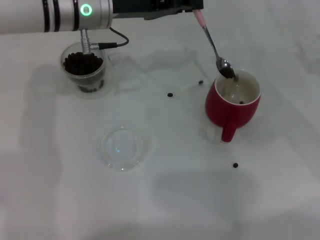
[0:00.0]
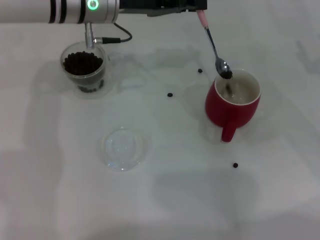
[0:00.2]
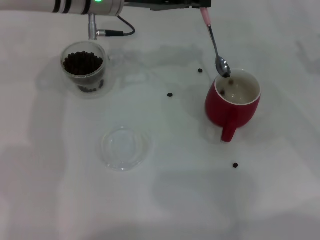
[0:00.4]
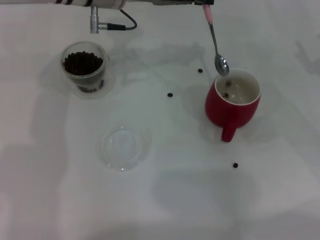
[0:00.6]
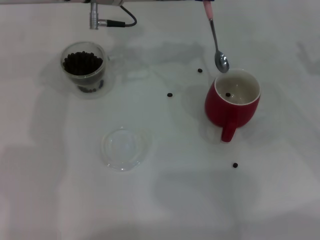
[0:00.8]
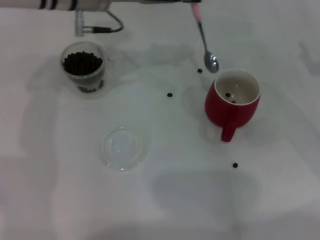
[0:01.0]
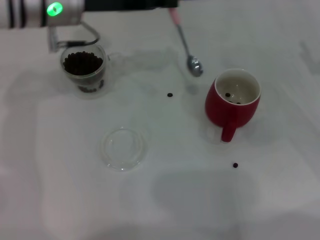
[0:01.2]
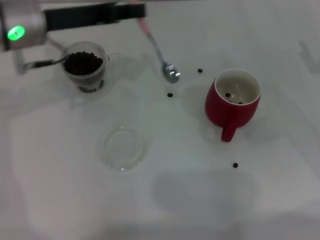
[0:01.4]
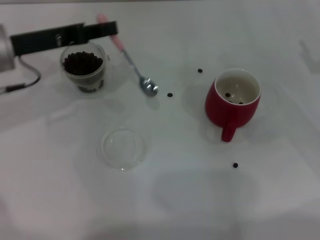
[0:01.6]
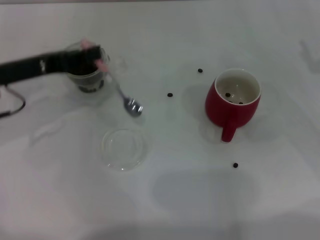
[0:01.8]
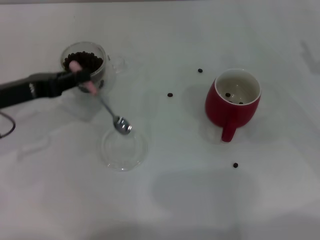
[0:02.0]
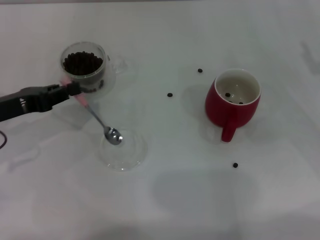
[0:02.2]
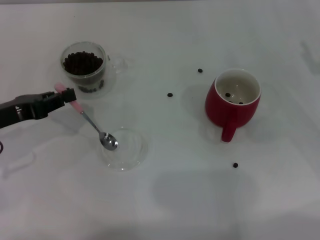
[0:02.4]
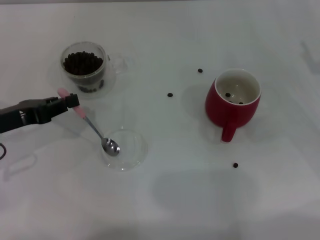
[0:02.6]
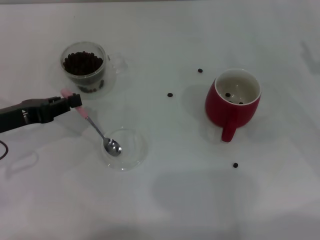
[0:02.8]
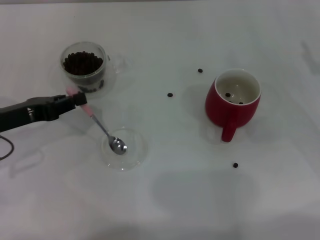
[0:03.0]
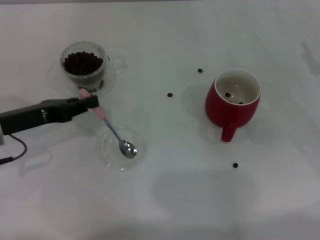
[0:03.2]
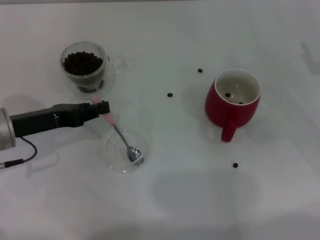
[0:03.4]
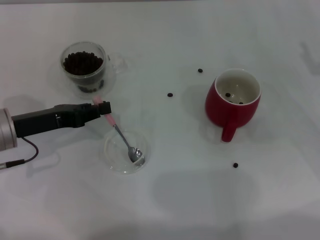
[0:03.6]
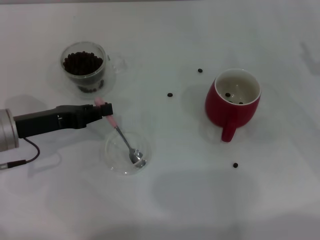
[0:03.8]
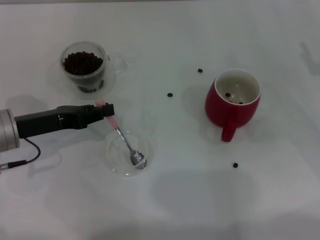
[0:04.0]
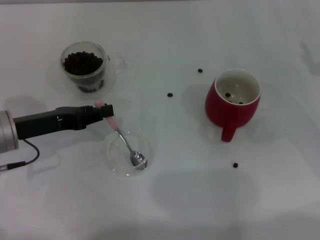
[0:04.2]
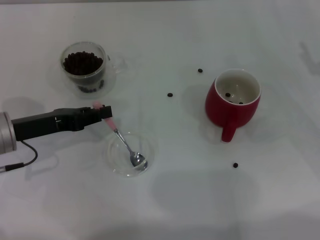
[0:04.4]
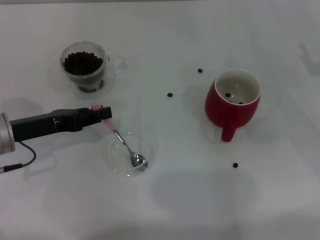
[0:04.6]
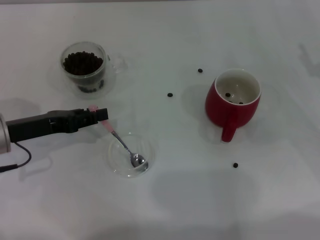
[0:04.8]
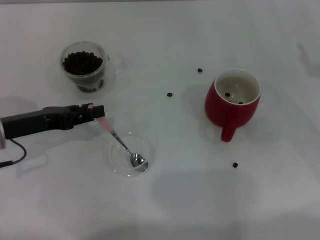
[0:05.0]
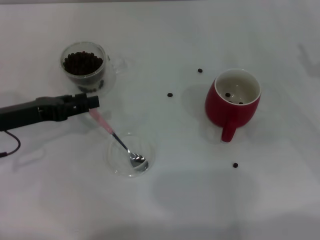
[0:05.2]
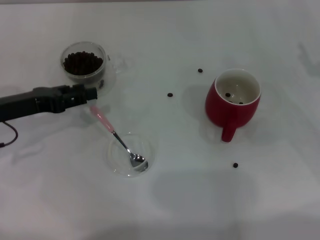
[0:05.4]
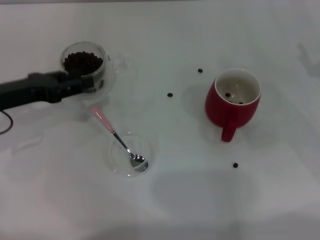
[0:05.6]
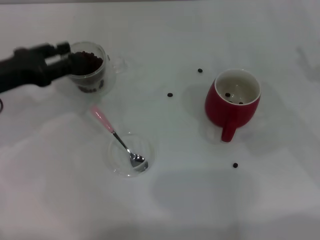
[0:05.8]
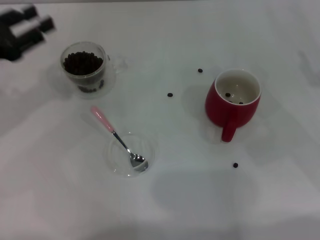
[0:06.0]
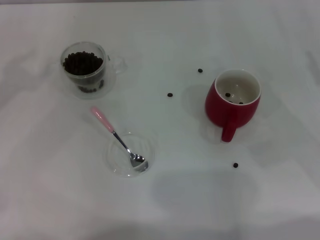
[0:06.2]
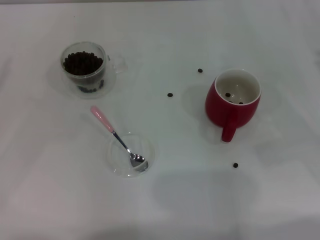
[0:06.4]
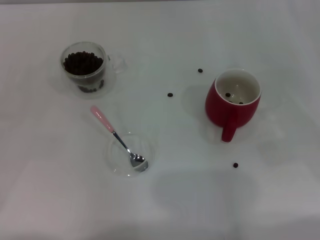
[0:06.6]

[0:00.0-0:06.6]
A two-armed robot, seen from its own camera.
Task of the whole recording: Use a pink spoon to take out the coffee beans from the glass and pour them into the red cup.
0:00.0 to 0:01.6: The left gripper heads to the left and backward, covering roughly 15 cm.
0:01.6 to 0:03.2: The left gripper shifts some 10 cm downward and backward.
0:03.2 to 0:05.0: The left gripper opens its fingers.
0:05.0 to 0:06.6: The left gripper moves to the left and upward, about 15 cm.

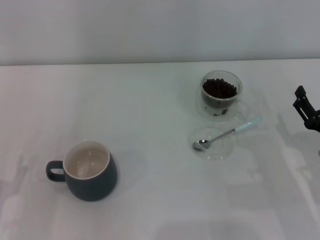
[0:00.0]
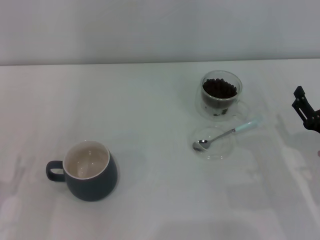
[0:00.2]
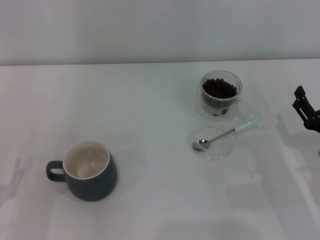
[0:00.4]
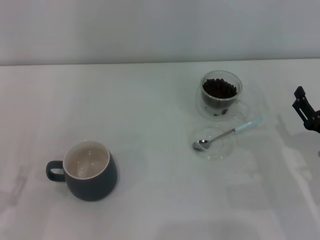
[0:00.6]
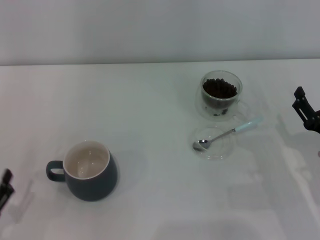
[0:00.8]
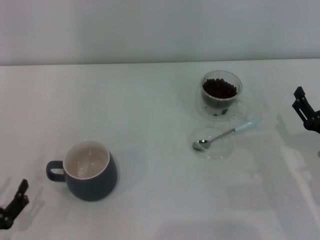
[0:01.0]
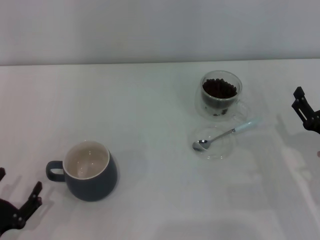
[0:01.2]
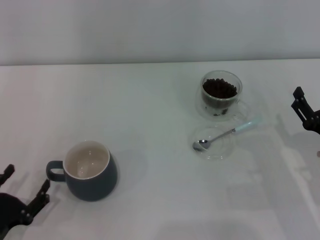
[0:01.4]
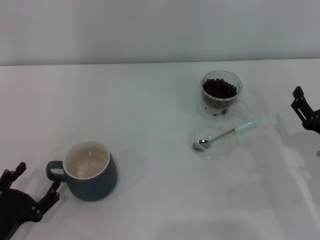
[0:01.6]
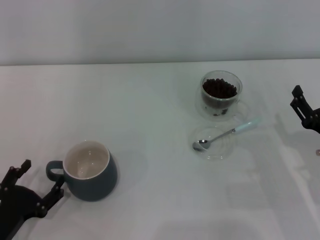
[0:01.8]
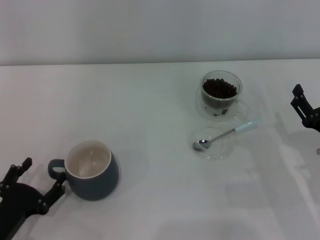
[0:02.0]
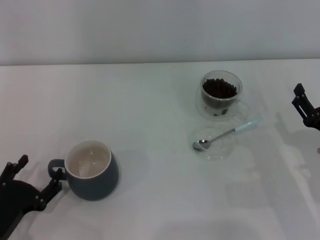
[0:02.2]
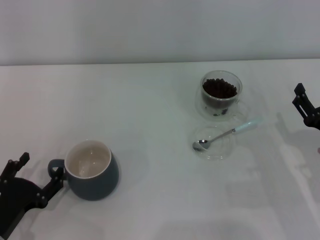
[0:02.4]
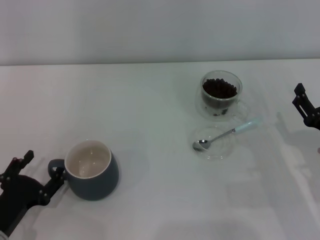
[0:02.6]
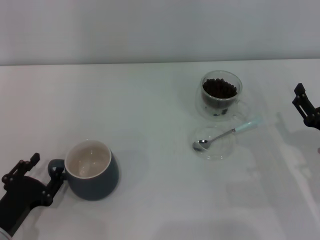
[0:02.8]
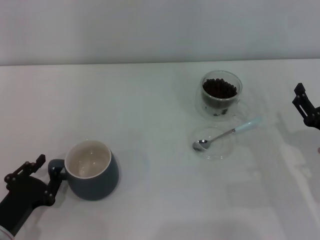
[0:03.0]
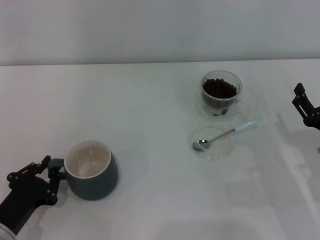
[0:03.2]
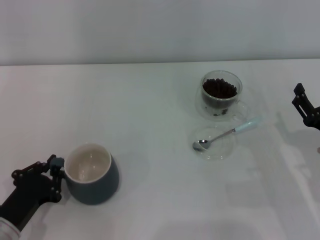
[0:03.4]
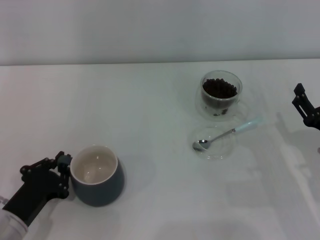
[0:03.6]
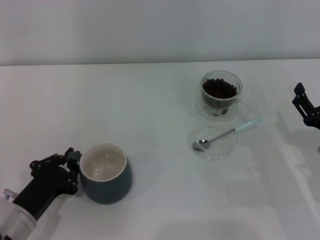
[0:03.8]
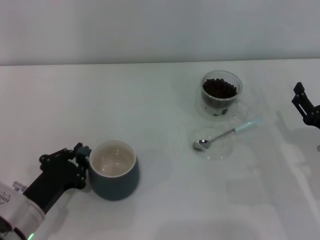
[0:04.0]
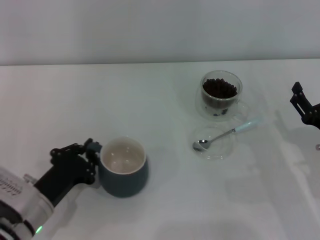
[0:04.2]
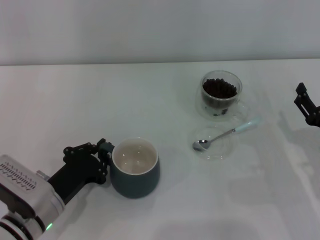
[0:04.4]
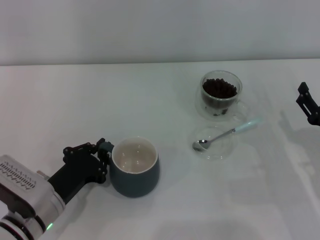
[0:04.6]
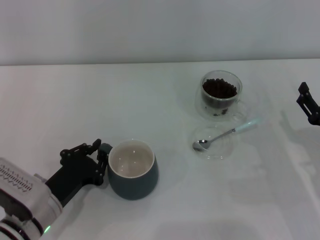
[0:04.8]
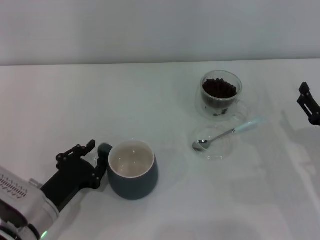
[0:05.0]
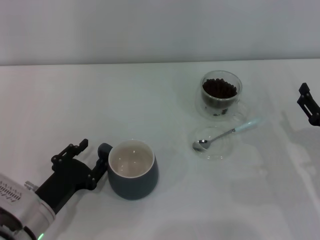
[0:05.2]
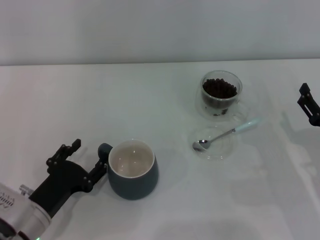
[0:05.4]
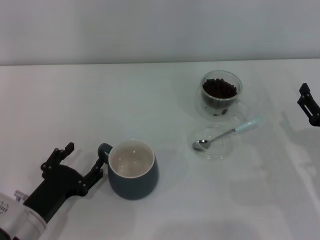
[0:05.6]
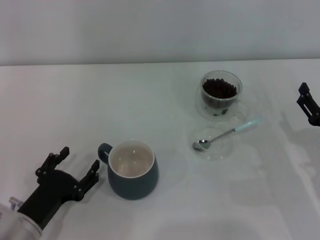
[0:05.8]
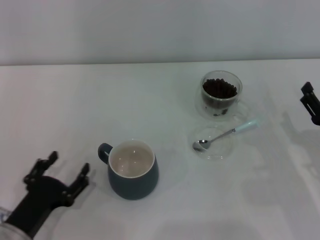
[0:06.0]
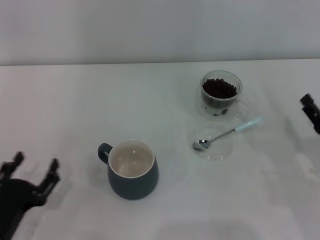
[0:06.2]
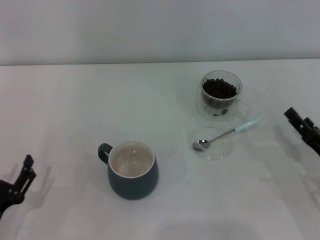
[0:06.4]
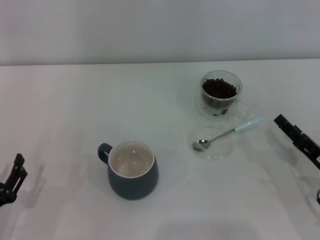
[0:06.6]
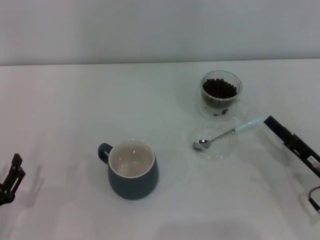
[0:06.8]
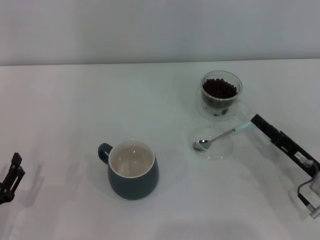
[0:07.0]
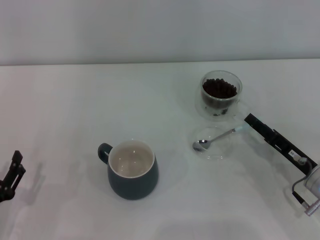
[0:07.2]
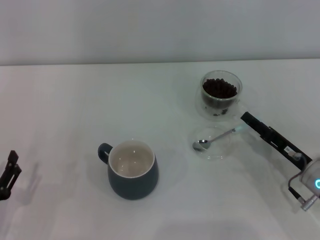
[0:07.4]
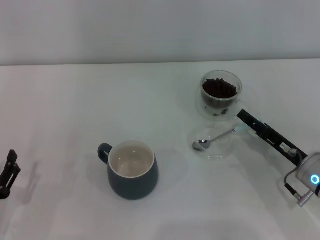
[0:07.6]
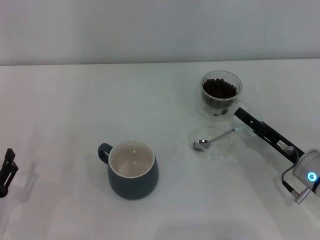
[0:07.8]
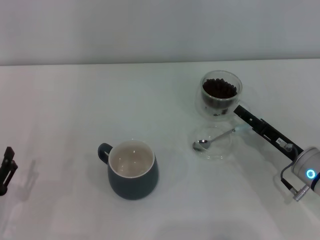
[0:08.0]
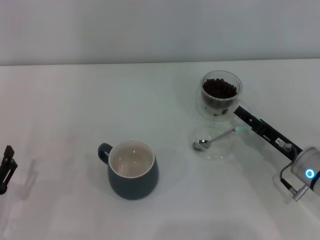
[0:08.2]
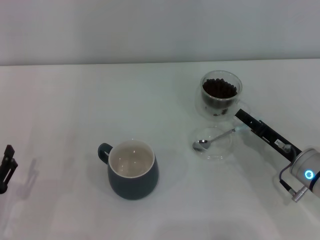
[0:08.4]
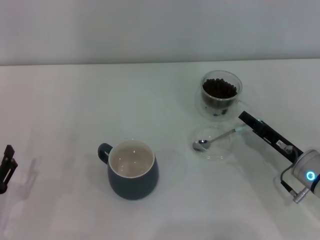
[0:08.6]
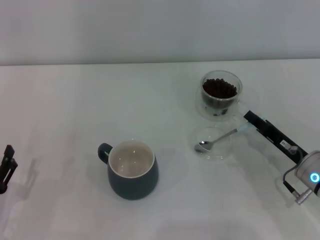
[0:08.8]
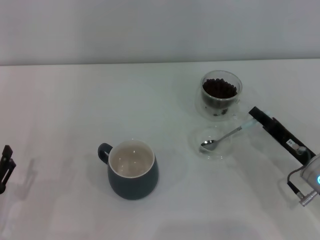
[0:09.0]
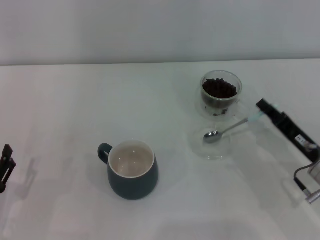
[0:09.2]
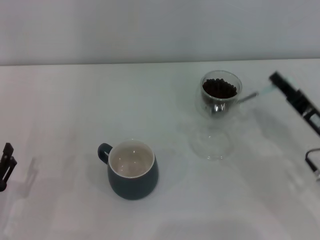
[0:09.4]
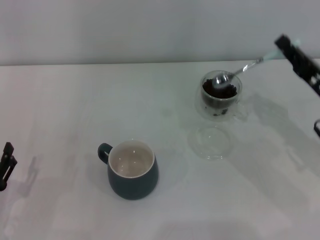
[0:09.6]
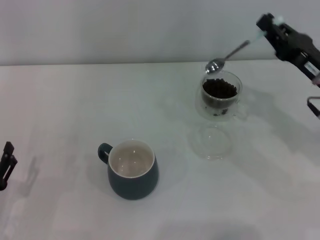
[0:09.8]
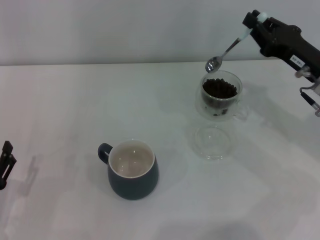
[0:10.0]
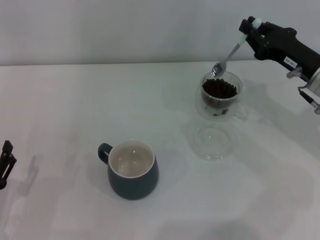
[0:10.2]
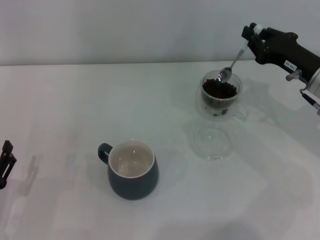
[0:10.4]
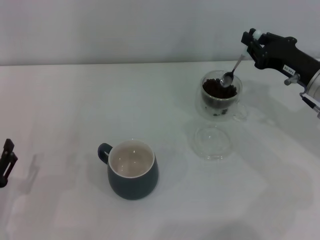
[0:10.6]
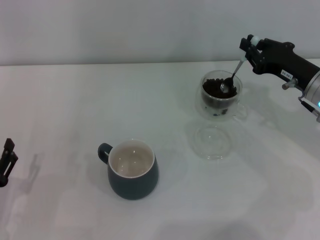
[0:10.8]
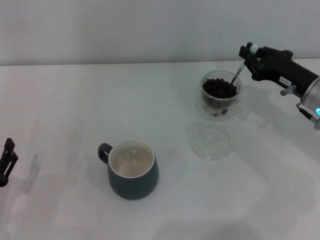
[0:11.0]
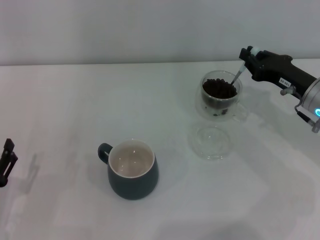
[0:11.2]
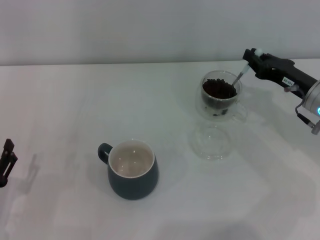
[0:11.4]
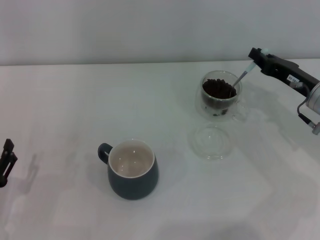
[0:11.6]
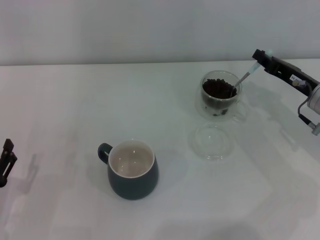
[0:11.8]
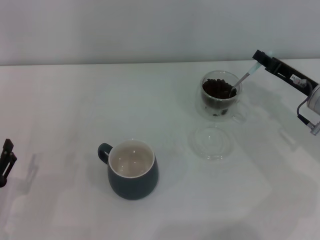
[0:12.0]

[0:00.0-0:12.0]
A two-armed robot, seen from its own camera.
Task of the whole recording: Use a blue spoon to take out the coffee beans from the glass and pour them into the gray cup.
Step, 0:00.0 to 0:05.6: Move the cup to the center of view with the left gripper.
Step, 0:06.0 to 0:09.2: Pick up the spoon with the right gripper.
0:01.6 to 0:03.0: The left gripper closes its fingers.
0:03.0 to 0:04.4: The left gripper heads to the right, covering about 5 cm, and closes its fingers.
0:04.4 to 0:06.0: The left gripper heads backward, covering about 5 cm, and opens up.
0:06.0 to 0:07.6: The left gripper shifts about 5 cm to the left. The right gripper moves approximately 5 cm.
0:07.6 to 0:09.0: The right gripper closes its fingers.
0:09.0 to 0:10.4: The right gripper moves forward and upward, approximately 15 cm.

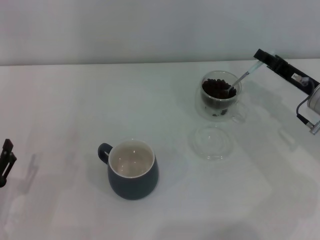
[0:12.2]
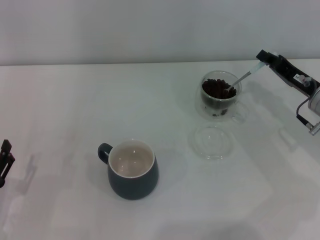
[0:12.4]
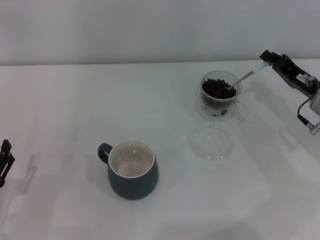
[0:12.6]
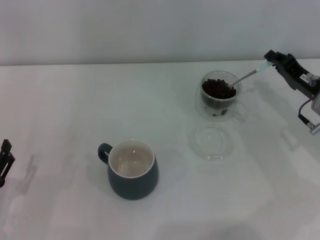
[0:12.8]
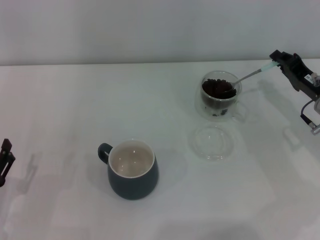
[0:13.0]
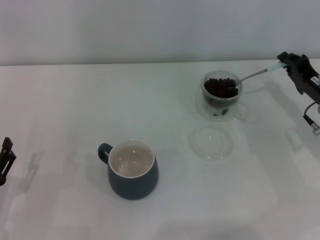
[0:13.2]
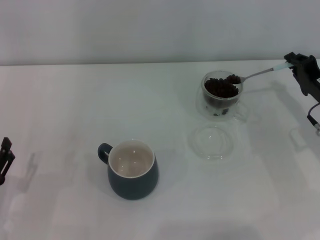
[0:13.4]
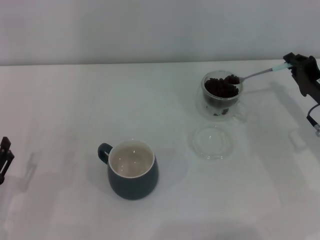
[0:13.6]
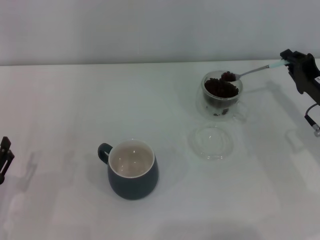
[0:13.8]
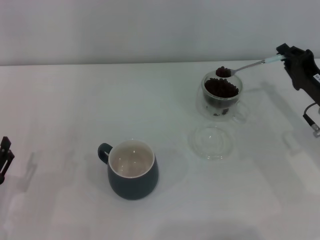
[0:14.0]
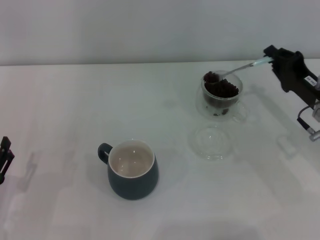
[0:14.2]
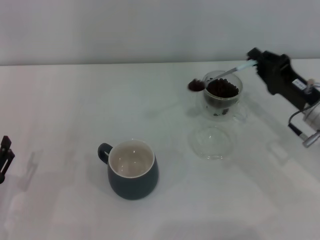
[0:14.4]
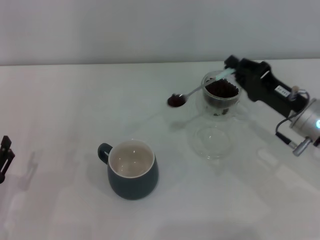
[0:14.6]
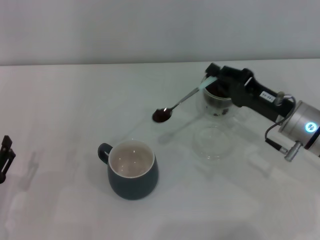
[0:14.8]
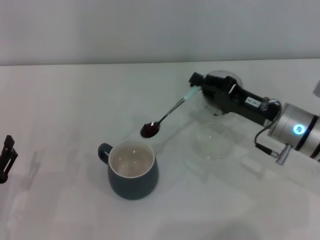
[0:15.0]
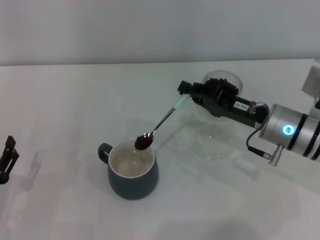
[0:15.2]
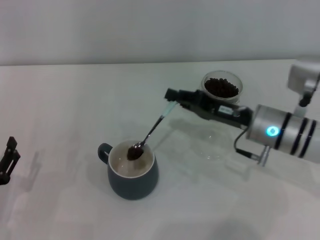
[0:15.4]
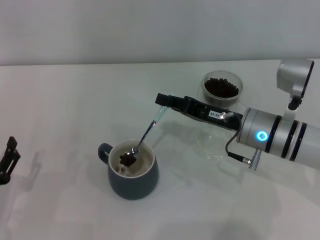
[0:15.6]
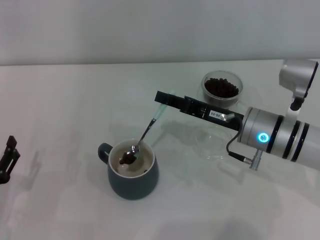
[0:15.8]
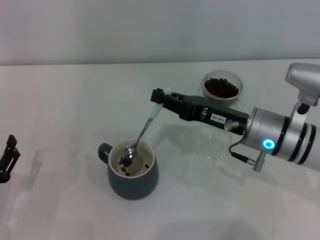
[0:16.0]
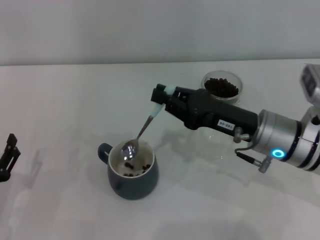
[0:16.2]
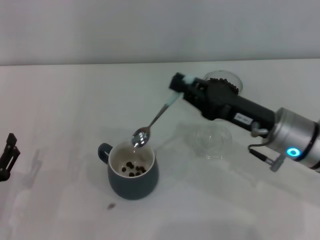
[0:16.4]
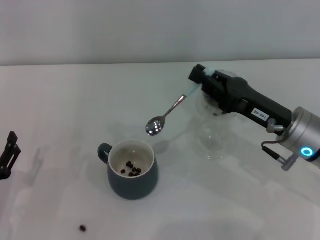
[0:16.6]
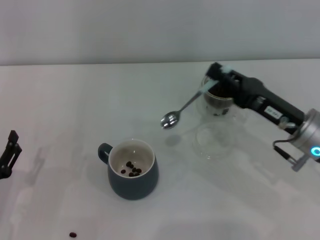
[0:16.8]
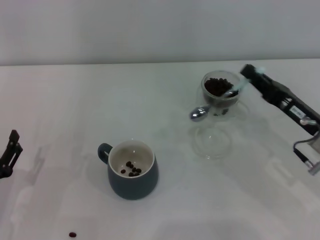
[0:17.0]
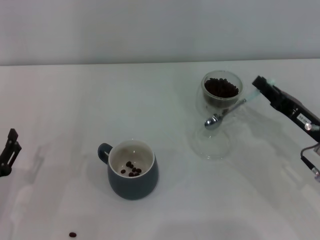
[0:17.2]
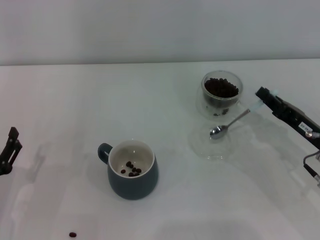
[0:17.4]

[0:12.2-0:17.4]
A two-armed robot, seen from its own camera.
Task of the whole recording: Use a blue spoon to take out the coffee beans from the glass and pour them into the gray cup.
Step, 0:12.2 to 0:16.0: Scoop a spoonful of beans into the cup with the right gripper.
0:14.0 to 0:15.6: The right gripper heads to the left, covering roughly 10 cm.
0:15.6 to 0:17.4: The right gripper shifts roughly 15 cm to the right and backward.
